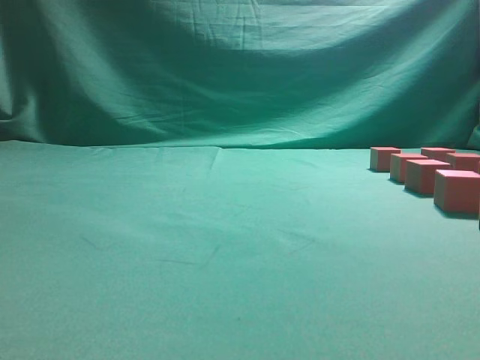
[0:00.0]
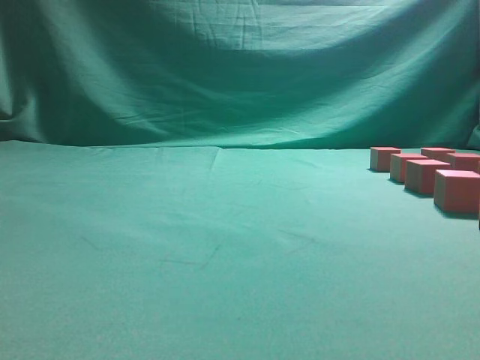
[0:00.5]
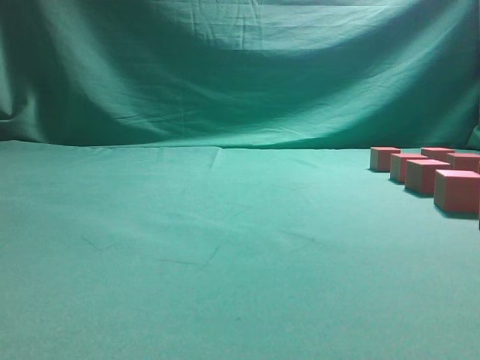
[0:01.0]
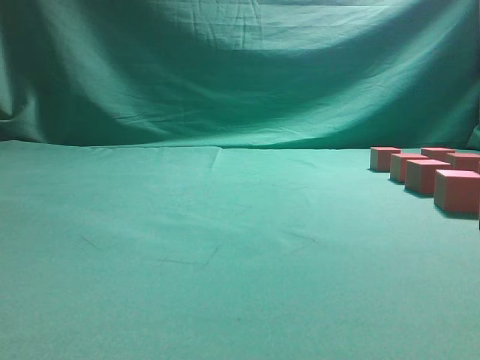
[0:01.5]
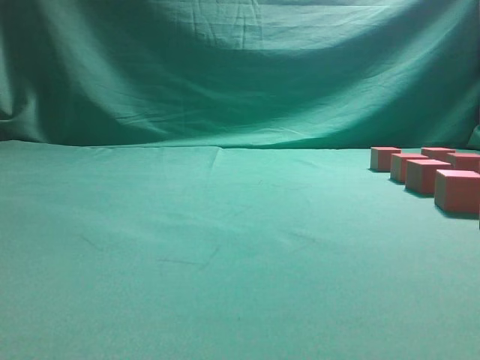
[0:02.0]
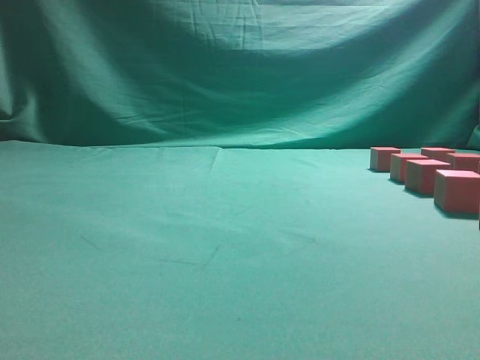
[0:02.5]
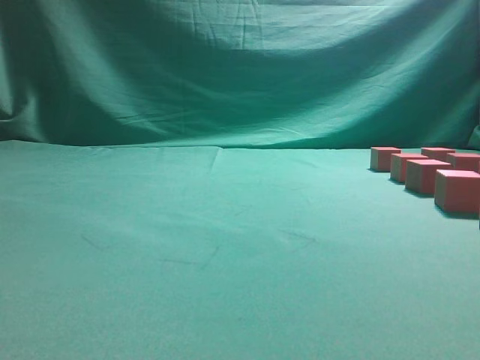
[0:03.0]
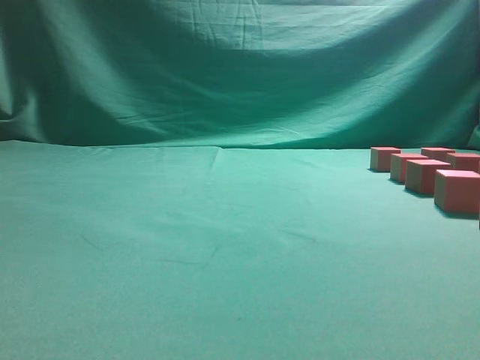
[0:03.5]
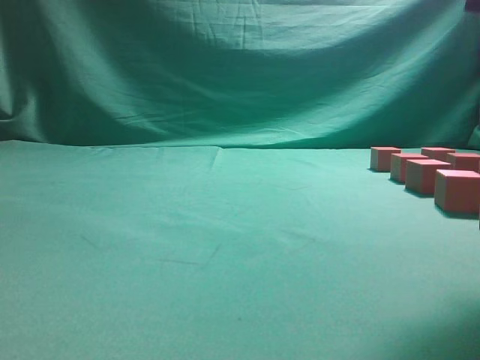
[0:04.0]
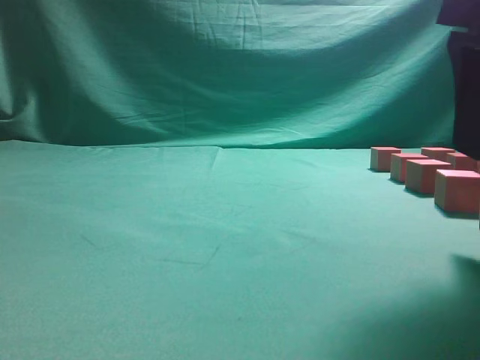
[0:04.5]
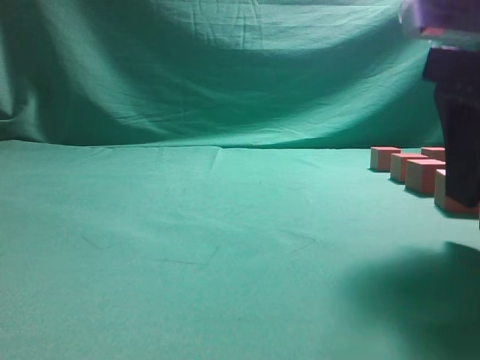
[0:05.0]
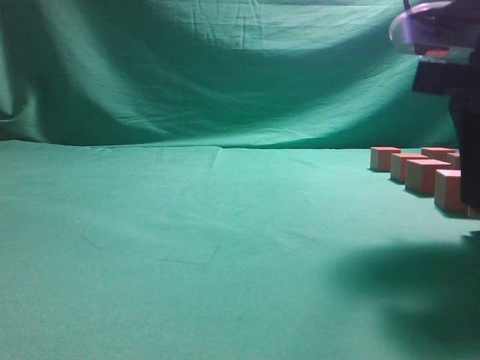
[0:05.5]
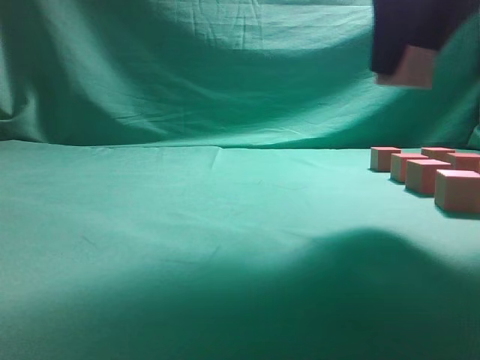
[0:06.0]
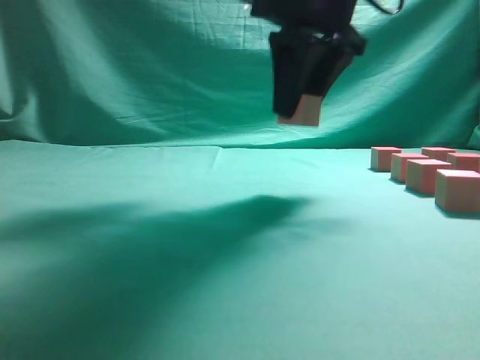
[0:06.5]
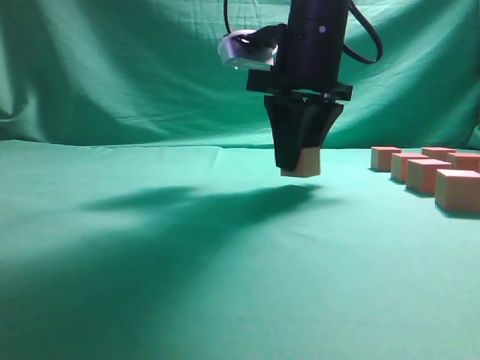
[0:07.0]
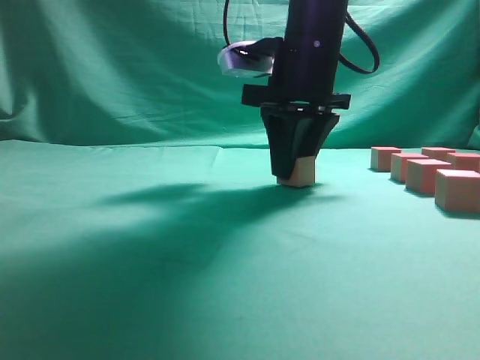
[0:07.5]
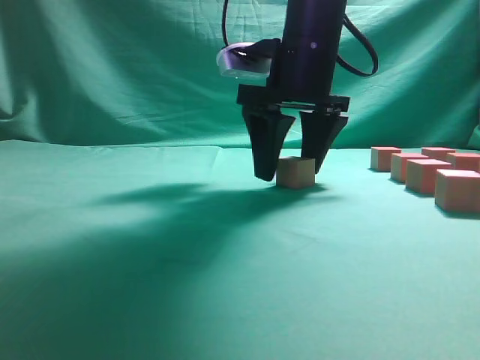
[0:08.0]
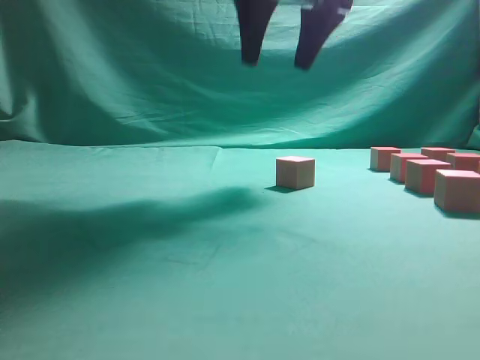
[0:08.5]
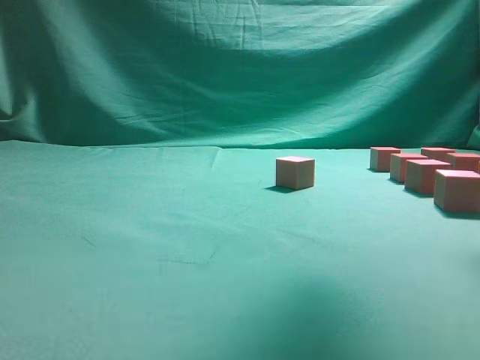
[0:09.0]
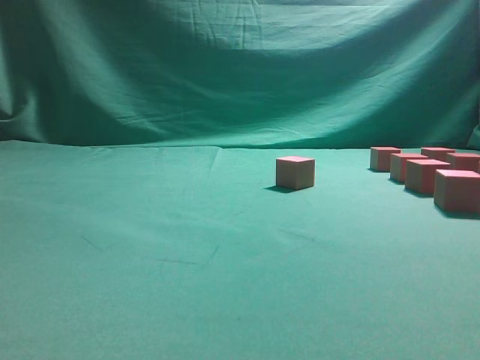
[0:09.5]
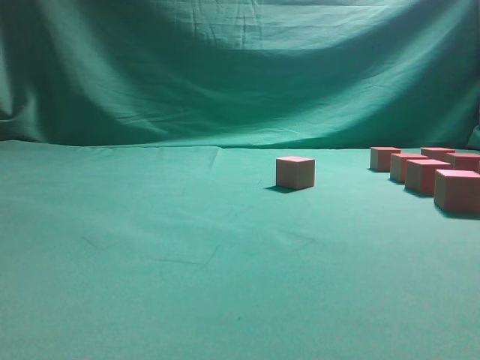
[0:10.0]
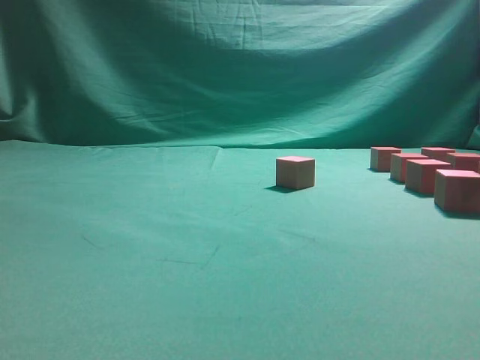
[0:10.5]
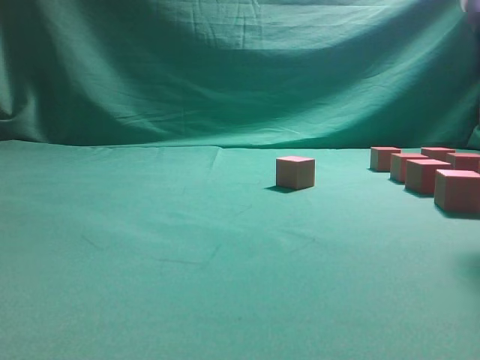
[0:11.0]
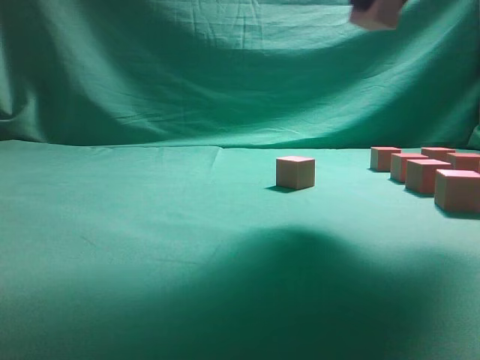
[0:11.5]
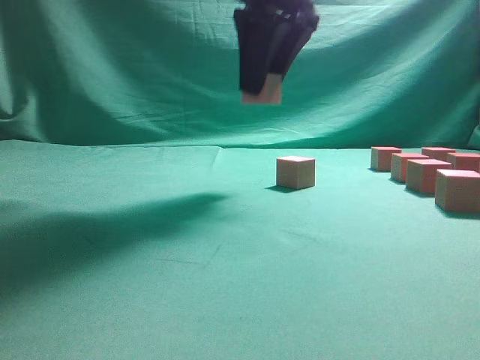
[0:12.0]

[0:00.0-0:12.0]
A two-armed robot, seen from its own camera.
Task of the whole recording: pick up the multiple cubes in two columns one by one and place them in another position on the table.
Step, 0.0 to 5.5 s: Pick up the block on the table.
Step, 6.0 to 8.0 s: Place the block at the correct position to assemble the letter S.
Step, 9.0 to 10.5 s: Pick up the block on the table.
2.0 to 4.0 s: The right gripper is displaced forward and to the left by about 20 cm.
4.0 to 6.0 s: The right gripper travels forward, upward and to the left by about 10 cm, and opens up.
6.0 to 8.0 s: The right gripper goes some 15 cm forward, to the left and downward, and opens its fingers.
8.0 to 10.0 s: The right gripper goes some 25 cm to the right and backward.
10.0 to 12.0 s: The right gripper heads to the left and forward, covering some 25 cm, and closes.

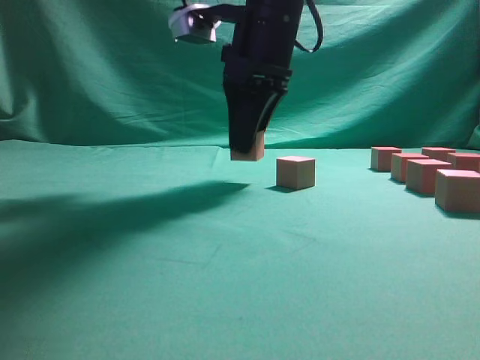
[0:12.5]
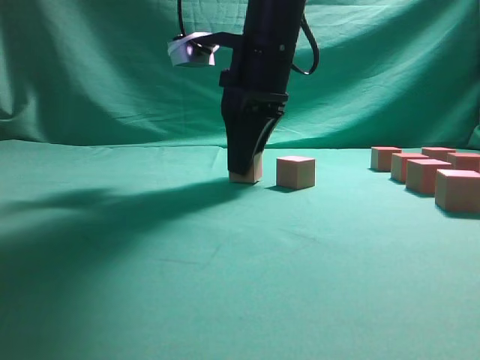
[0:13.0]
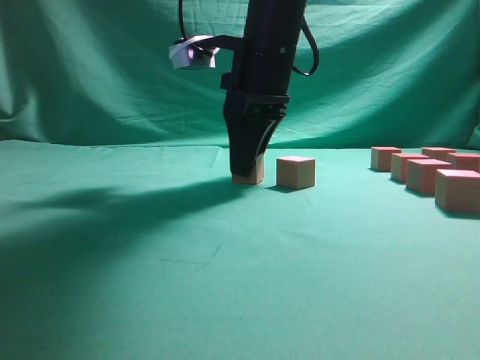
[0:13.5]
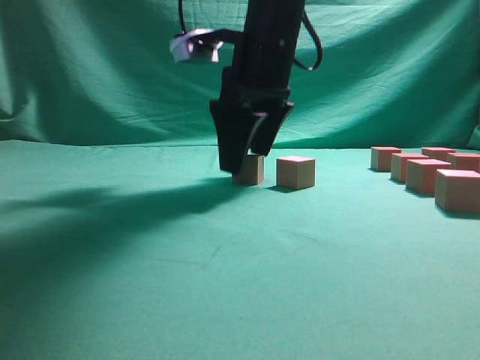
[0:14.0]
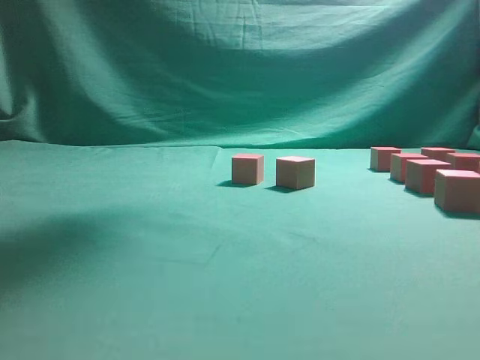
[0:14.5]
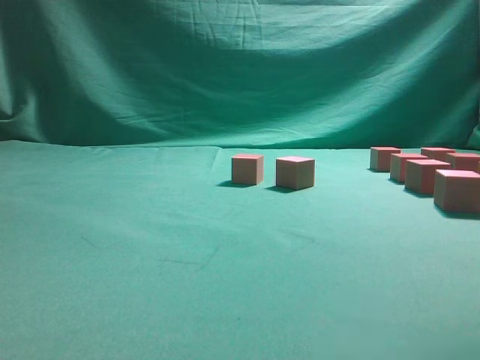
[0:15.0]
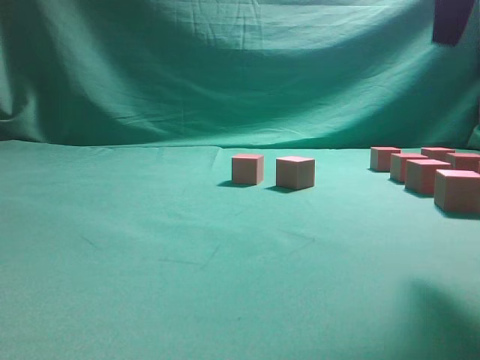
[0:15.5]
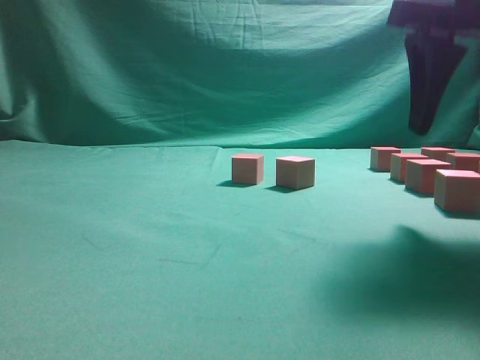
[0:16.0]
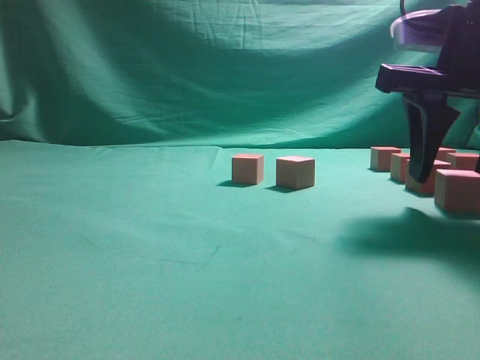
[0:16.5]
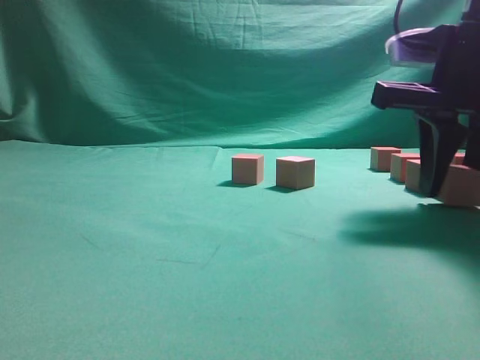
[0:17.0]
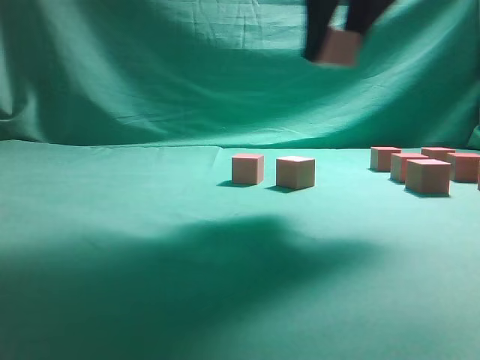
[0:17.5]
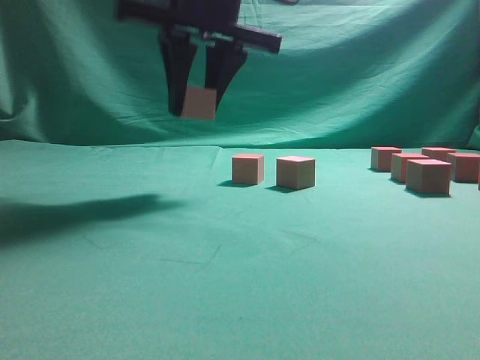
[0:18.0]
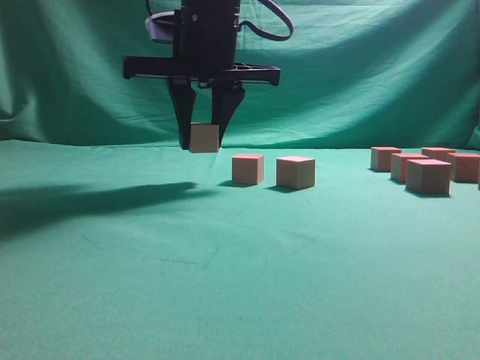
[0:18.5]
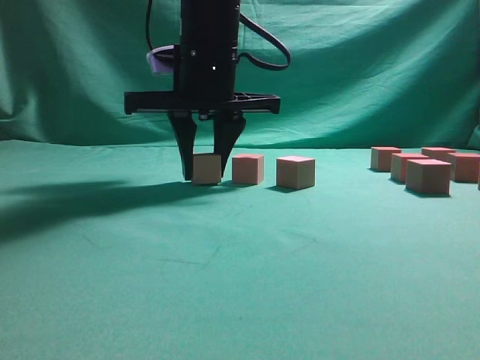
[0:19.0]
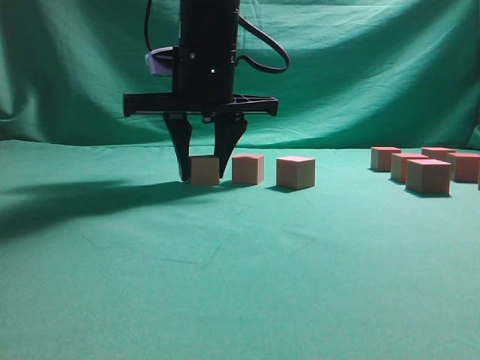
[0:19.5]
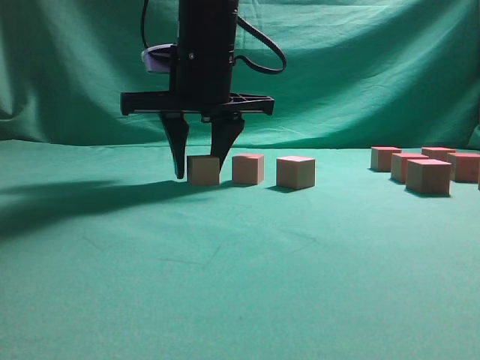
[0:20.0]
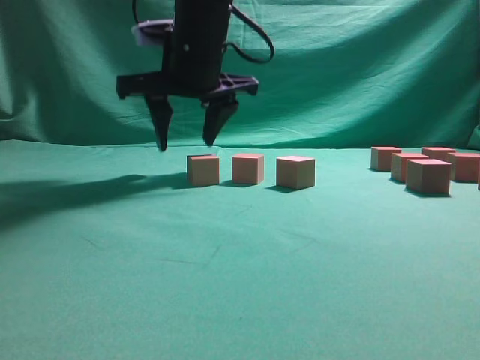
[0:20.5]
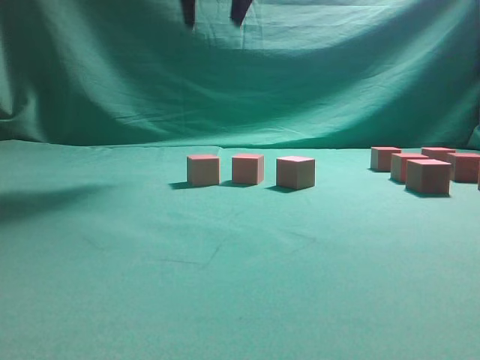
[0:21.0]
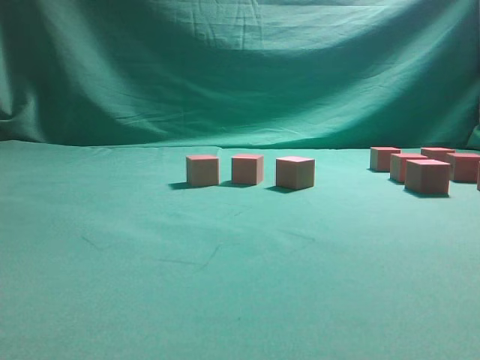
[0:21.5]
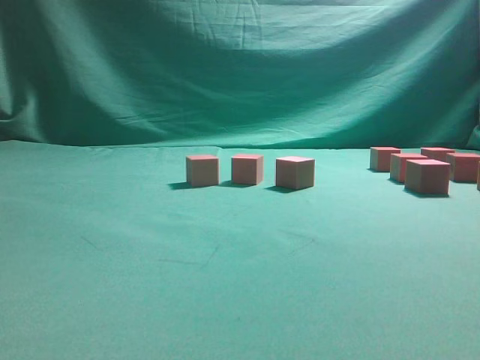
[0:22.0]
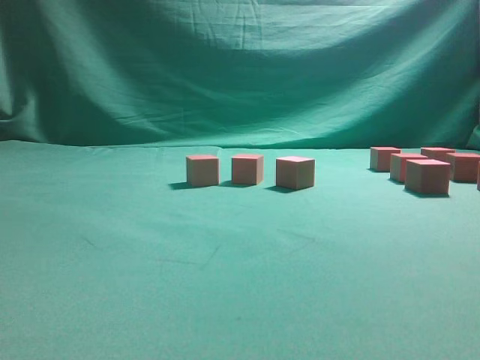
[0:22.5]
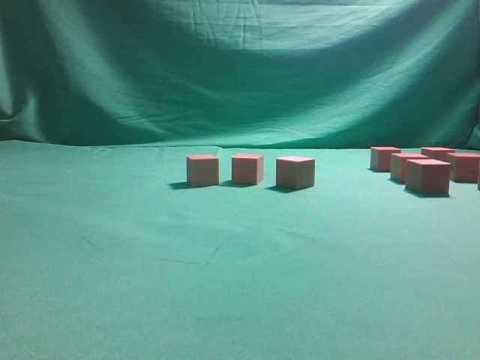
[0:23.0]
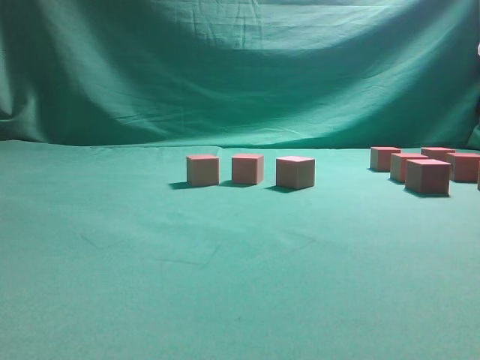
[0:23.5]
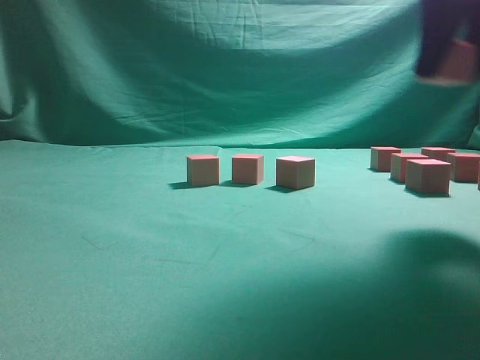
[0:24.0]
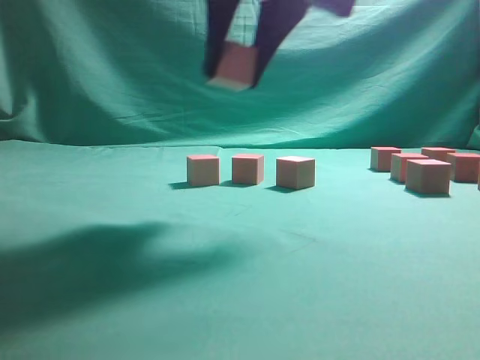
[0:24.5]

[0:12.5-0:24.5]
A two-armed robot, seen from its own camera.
Task of the whole recording: pick up the multiple cubes in two columns one by one and place them in another position on the table.
Step, 14.5 to 17.0 s: Pick up the block on the table.
Step, 17.5 to 20.5 s: Place the block at the correct position to assemble the letter S.
Step, 21.0 to 23.5 s: Pick up the block on the table.
12.5 to 14.5 s: The right gripper moves upward, about 20 cm, and opens its fingers.
14.5 to 16.5 s: The right gripper goes approximately 25 cm downward and to the right.
16.5 to 18.5 s: The right gripper goes roughly 25 cm to the left.
18.5 to 20.5 s: The grippers move only a little.
20.5 to 22.5 s: The right gripper goes approximately 35 cm to the right and backward.
22.5 to 24.5 s: The right gripper is displaced to the left by about 25 cm.

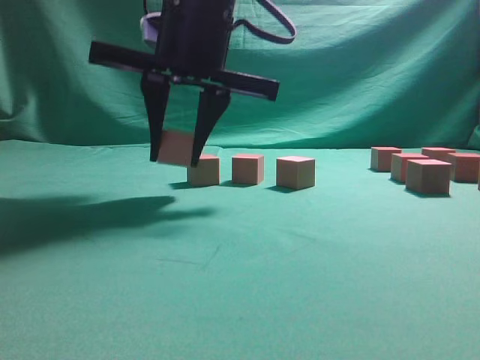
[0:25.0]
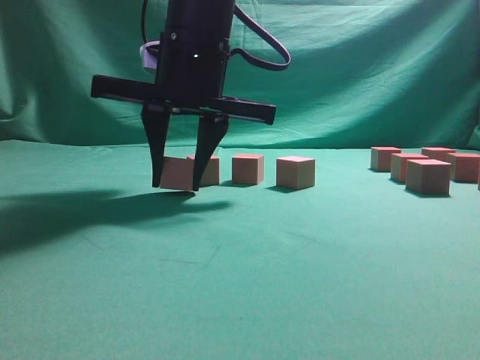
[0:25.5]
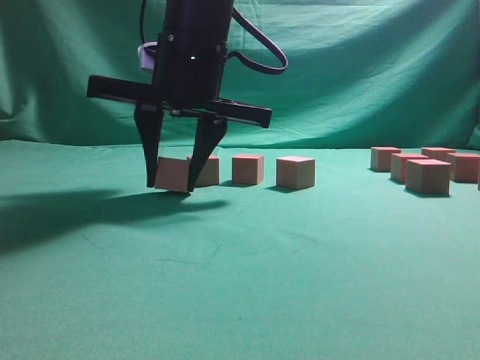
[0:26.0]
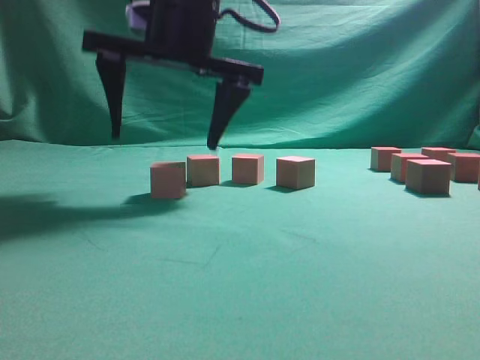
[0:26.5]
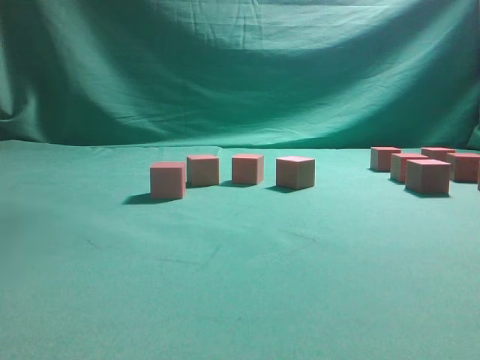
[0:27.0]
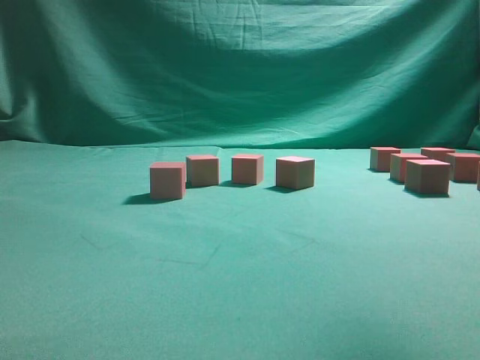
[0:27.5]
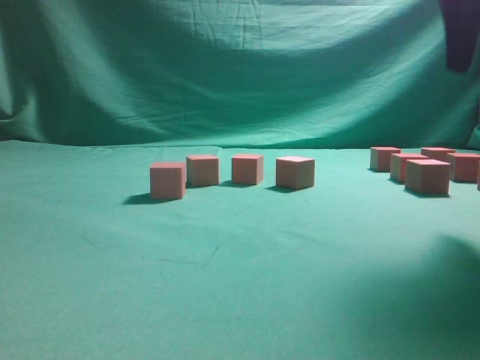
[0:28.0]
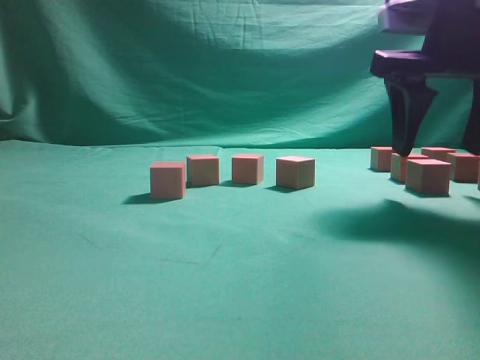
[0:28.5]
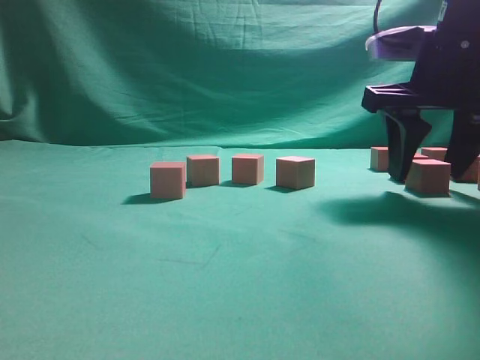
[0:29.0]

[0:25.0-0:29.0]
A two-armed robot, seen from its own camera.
Task of the whole recording: pick up the multiple cubes in two columns one by one and place them in another position on the table.
Step, 25.0 to 26.5 s: Place the block at the correct position to assemble the letter S.
25.0 to 27.0 s: The right gripper moves upward, about 20 cm, and opens.
27.0 to 29.0 s: The right gripper is displaced downward and to the right by about 30 cm.
